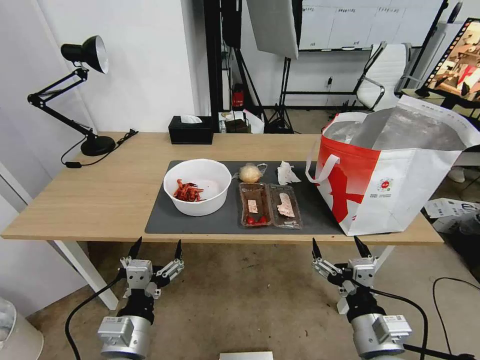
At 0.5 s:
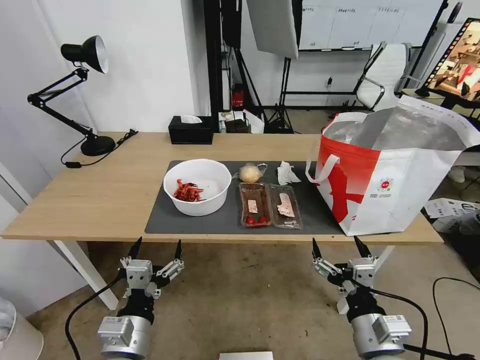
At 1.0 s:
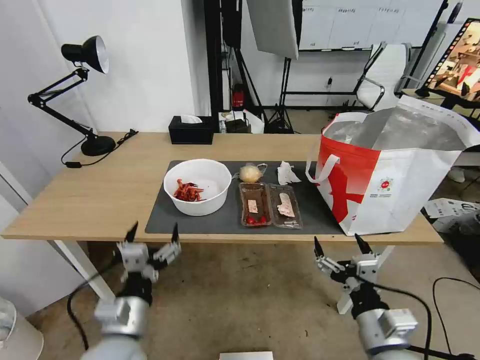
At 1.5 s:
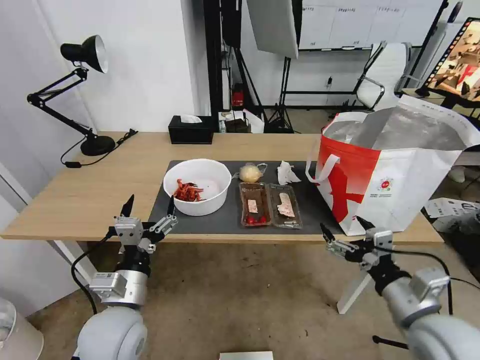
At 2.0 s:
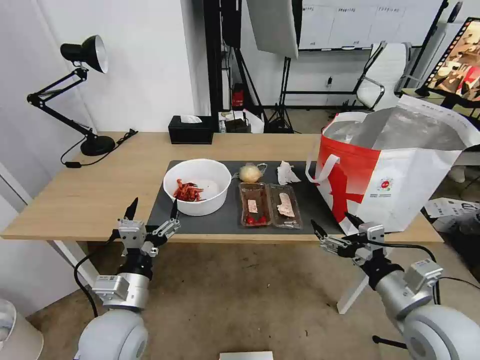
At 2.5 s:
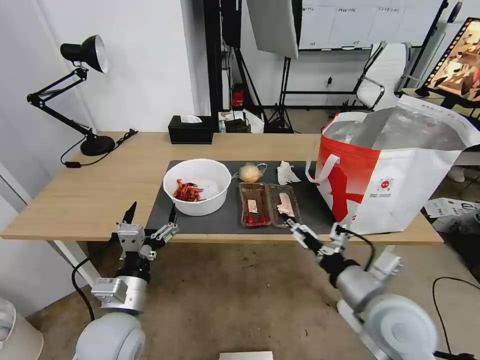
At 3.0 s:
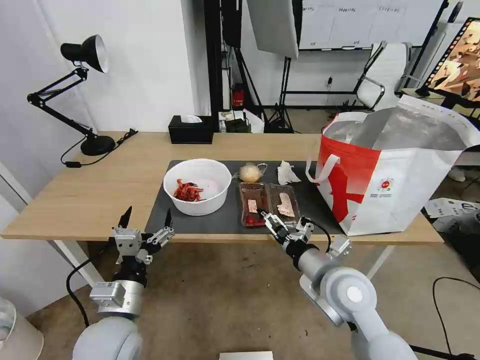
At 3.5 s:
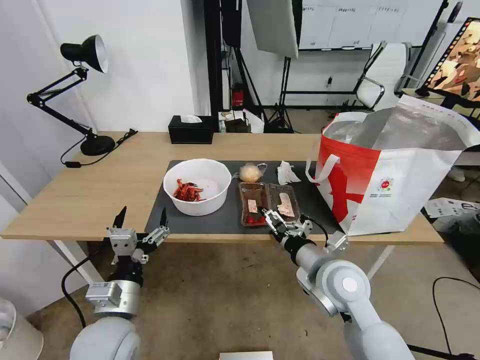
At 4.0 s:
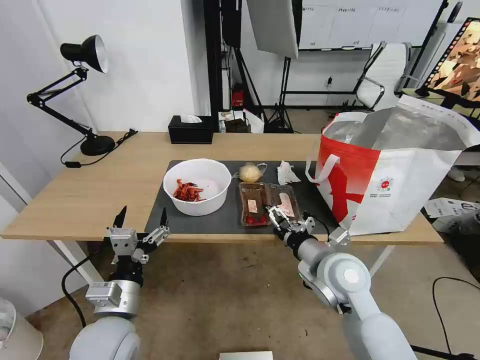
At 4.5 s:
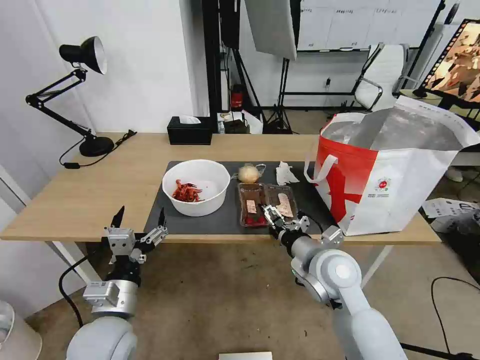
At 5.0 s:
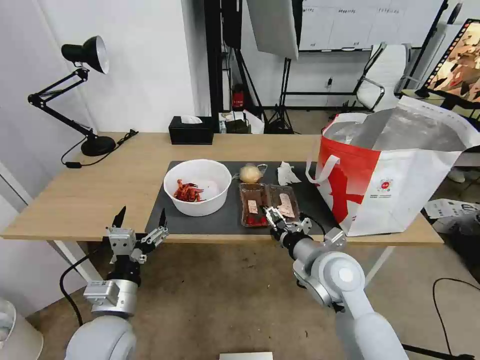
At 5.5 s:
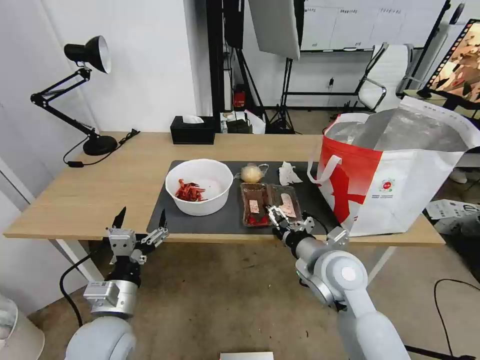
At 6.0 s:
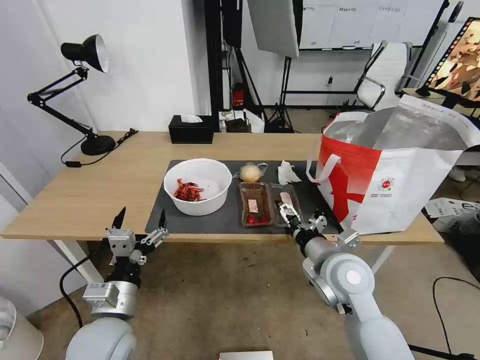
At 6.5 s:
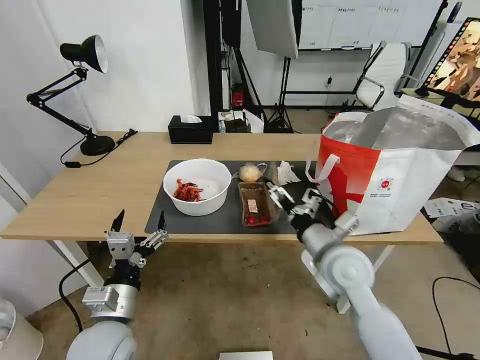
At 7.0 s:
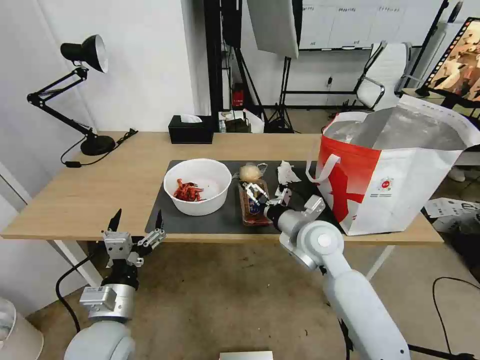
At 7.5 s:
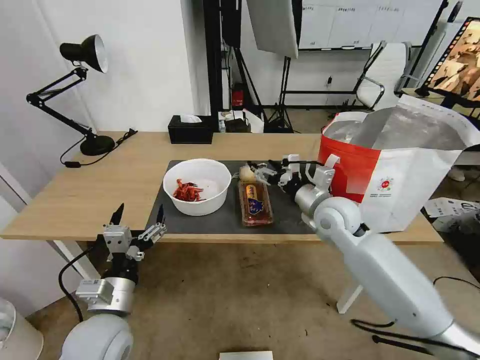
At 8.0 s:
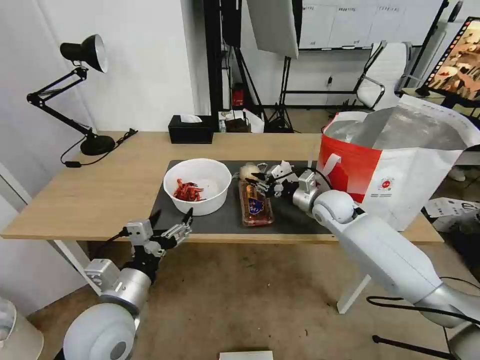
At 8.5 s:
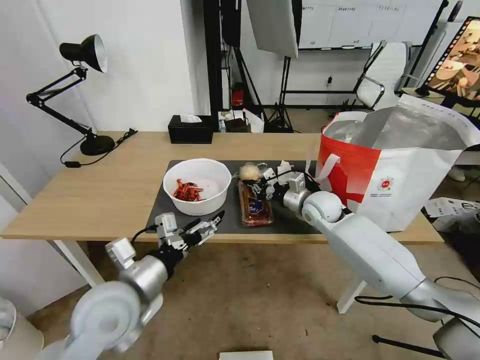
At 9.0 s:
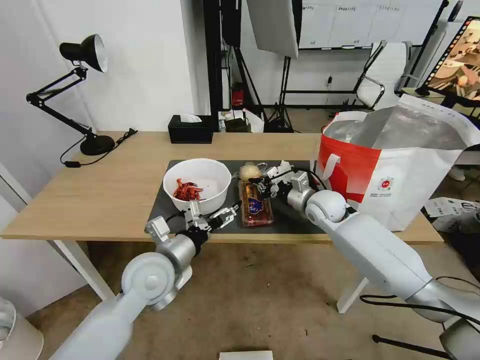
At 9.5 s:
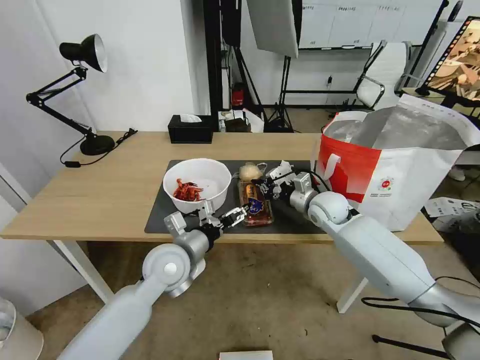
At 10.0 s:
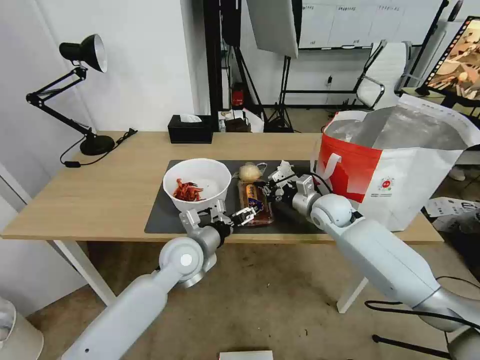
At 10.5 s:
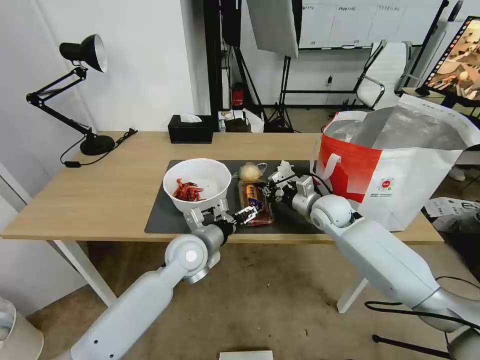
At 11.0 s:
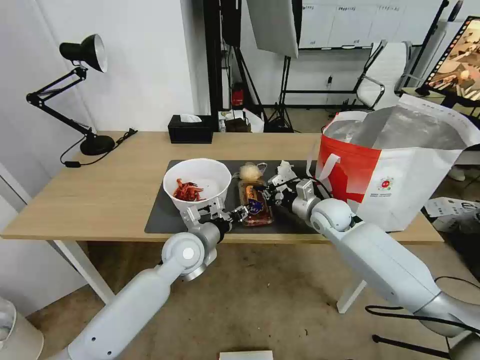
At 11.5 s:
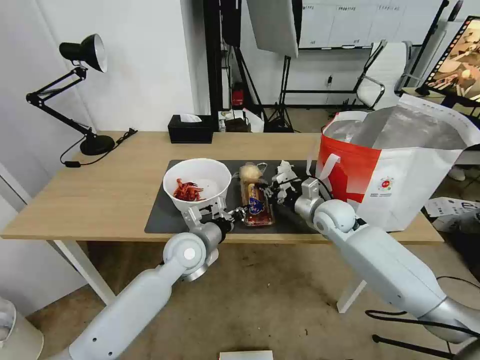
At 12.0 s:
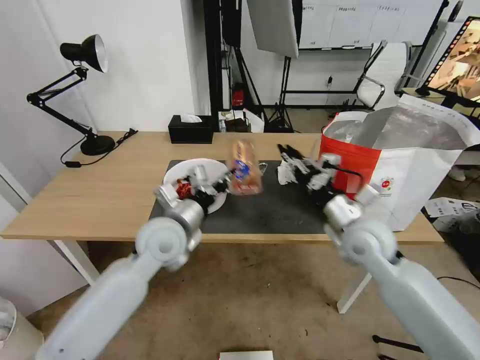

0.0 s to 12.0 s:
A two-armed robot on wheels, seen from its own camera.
Task of the whole recording: Pick up the trash from the table and place it into the takeout bag.
2.0 to 4.0 s: The right gripper goes roughly 15 cm to the left and forward.
4.0 to 6.0 s: There are only small adjustments of the grippers.
6.0 to 8.0 s: The left gripper is displaced upward by approximately 5 cm. The right gripper heads forward, covering approximately 20 cm, and closes.
8.0 to 10.0 s: The left gripper goes roughly 20 cm forward and to the right.
10.0 to 12.0 s: The right gripper travels backward and upward by some 15 cm; the left gripper moves upward, roughly 5 cm, and closes up.

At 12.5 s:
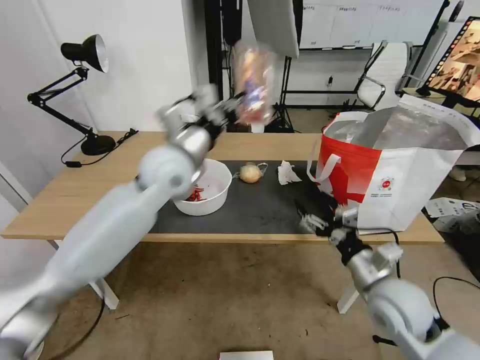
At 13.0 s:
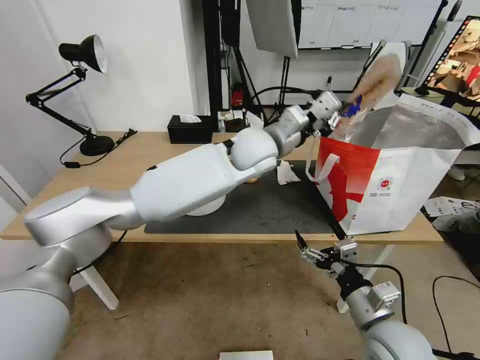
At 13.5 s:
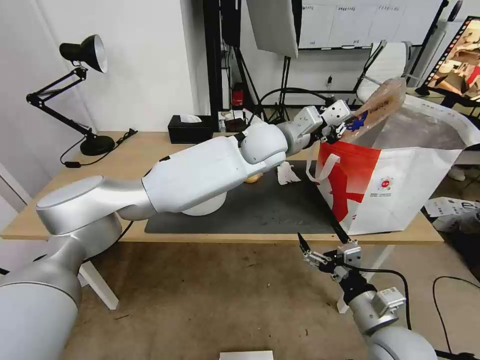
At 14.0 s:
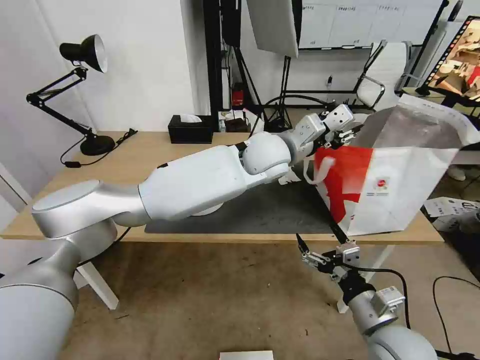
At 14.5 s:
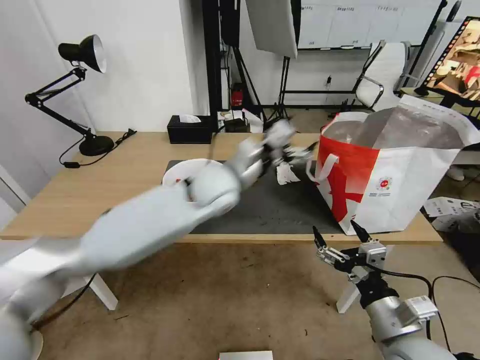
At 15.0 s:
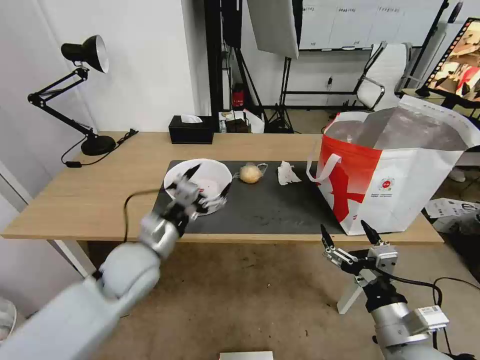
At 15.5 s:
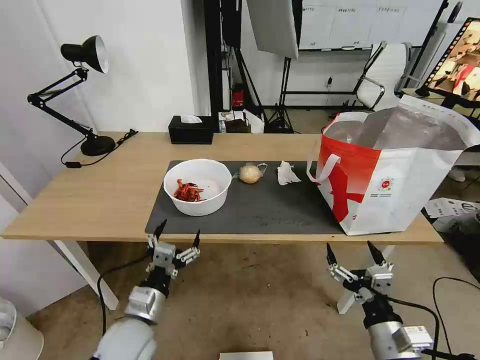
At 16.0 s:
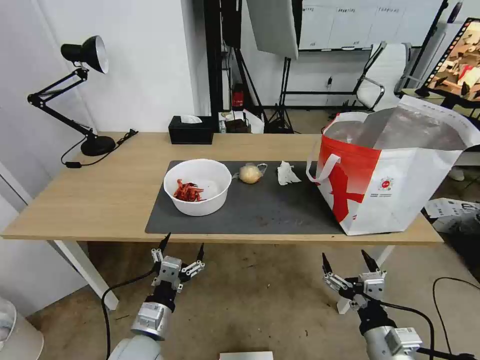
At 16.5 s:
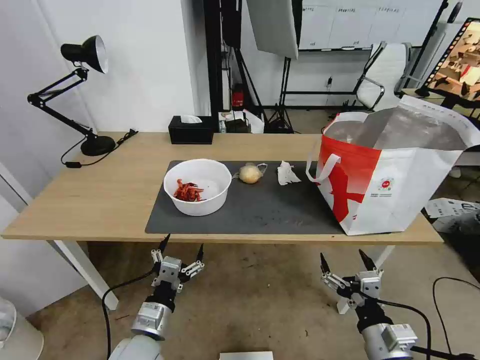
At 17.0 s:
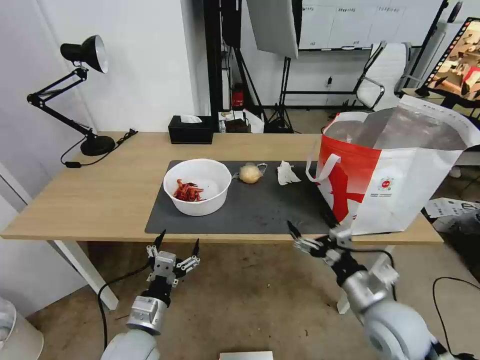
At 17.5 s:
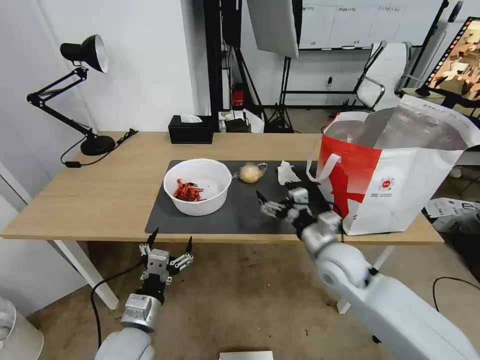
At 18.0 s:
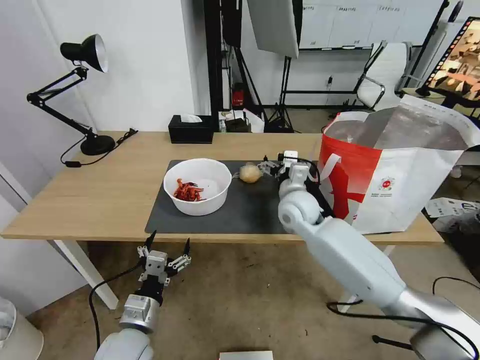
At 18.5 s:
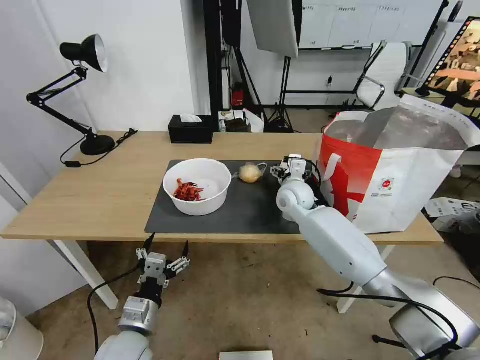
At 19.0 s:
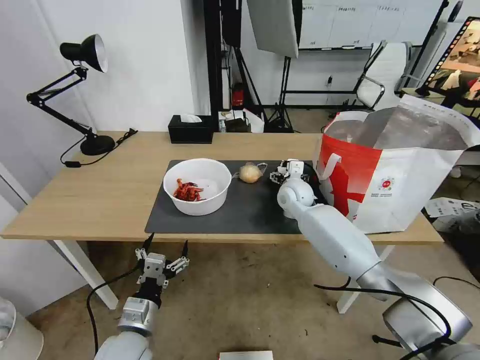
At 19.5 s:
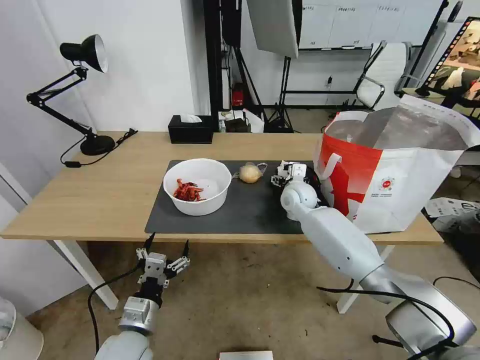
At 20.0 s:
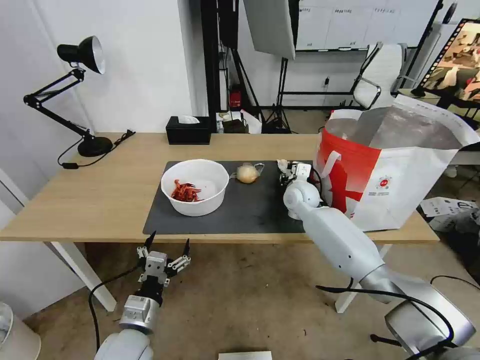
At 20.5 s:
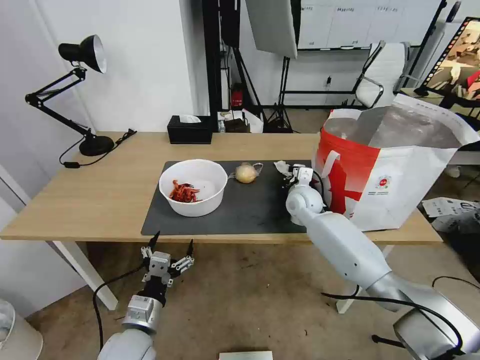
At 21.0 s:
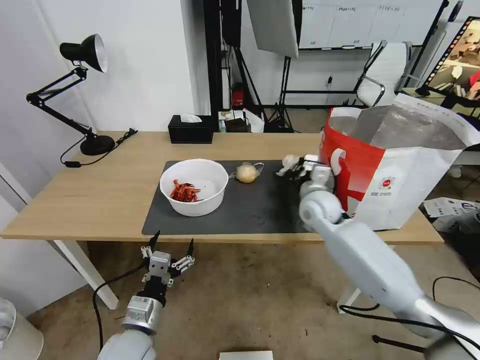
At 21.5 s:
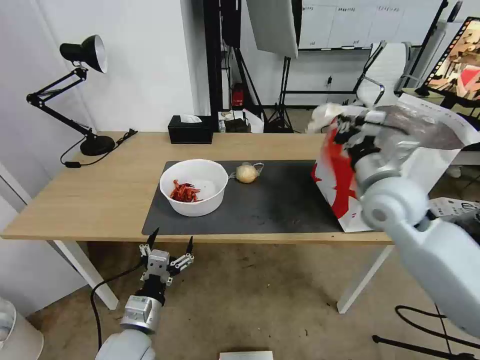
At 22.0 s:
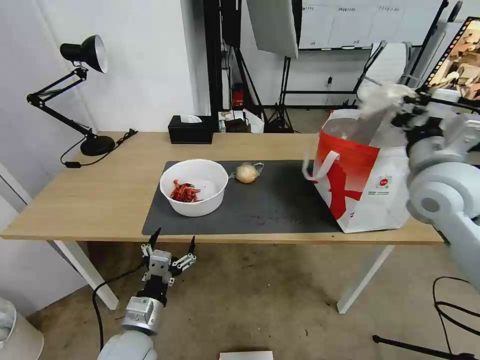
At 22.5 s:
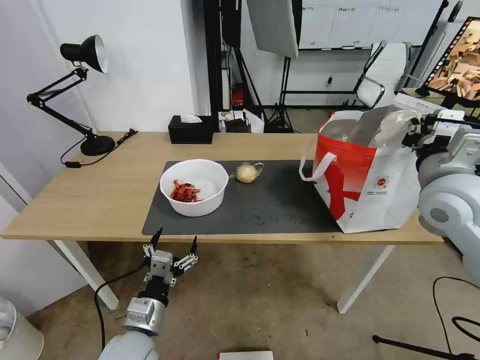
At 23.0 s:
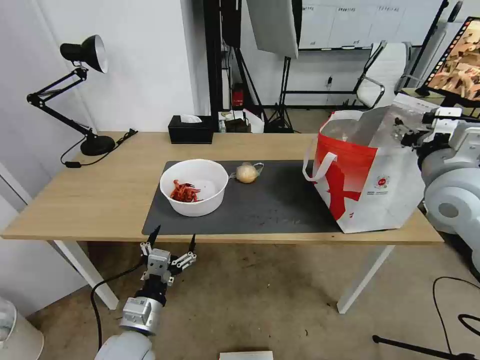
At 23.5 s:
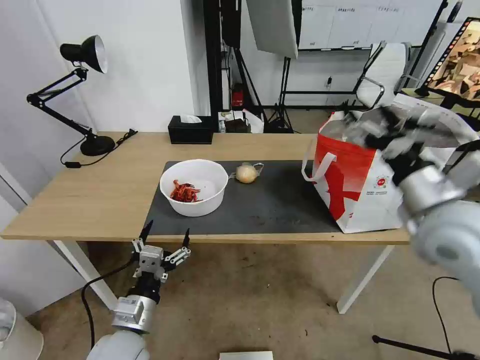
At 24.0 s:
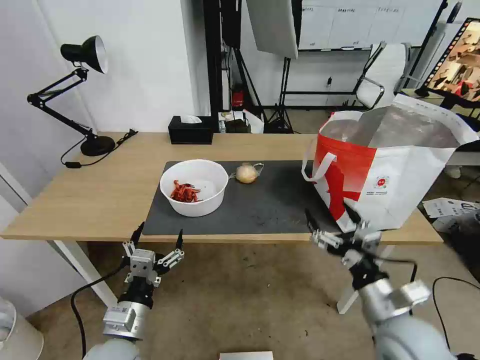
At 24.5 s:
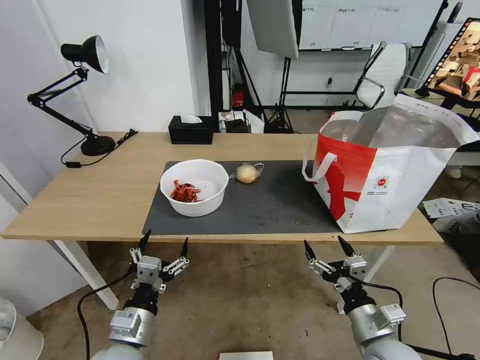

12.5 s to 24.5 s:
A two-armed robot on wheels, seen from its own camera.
Task of the whole recording: Pick up the trash from the table and place it into the takeout bag.
12.5 to 14.5 s: The right gripper heads backward, covering about 10 cm; the left gripper heads to the right and downward, covering about 10 cm, and opens its fingers.
14.5 to 16.5 s: The left gripper moves backward, downward and to the left, some 35 cm. The right gripper moves downward, some 5 cm.
16.5 to 18.5 s: The right gripper moves forward, about 40 cm.
18.5 to 20.5 s: The right gripper closes up.
20.5 to 22.5 s: The right gripper travels upward, backward and to the right by about 30 cm.
22.5 to 24.5 s: The right gripper goes roughly 30 cm downward and backward, and opens up.

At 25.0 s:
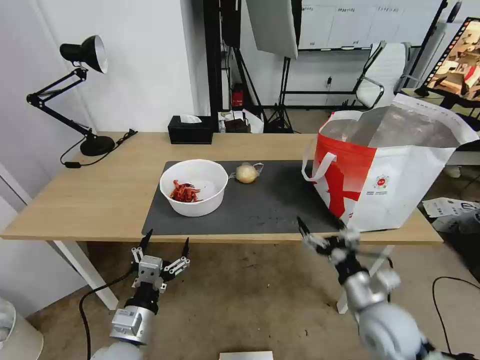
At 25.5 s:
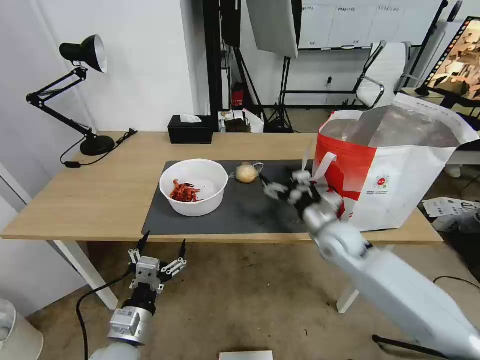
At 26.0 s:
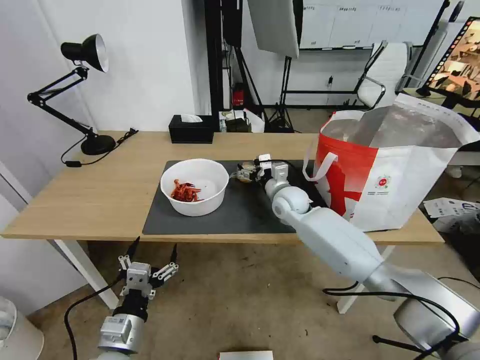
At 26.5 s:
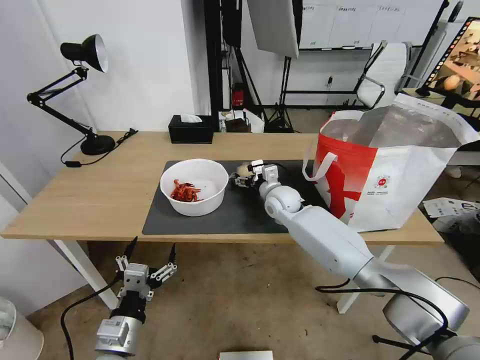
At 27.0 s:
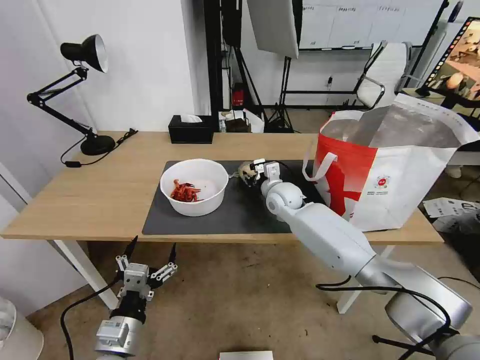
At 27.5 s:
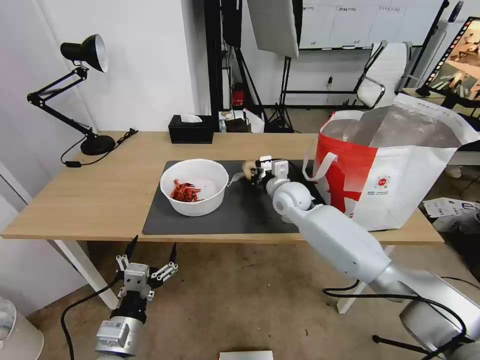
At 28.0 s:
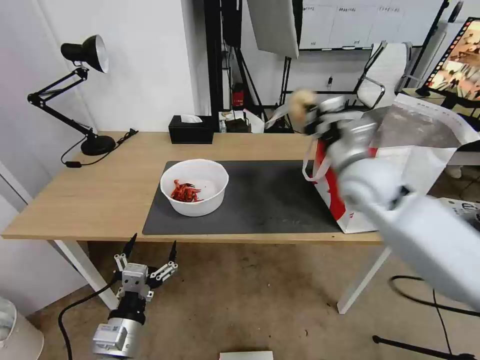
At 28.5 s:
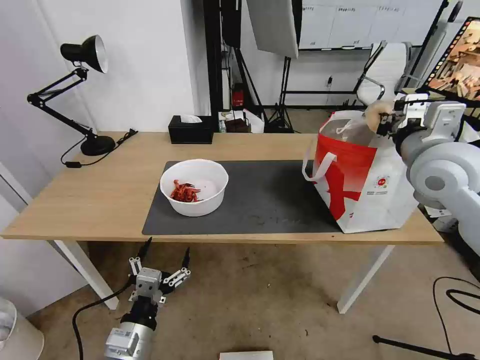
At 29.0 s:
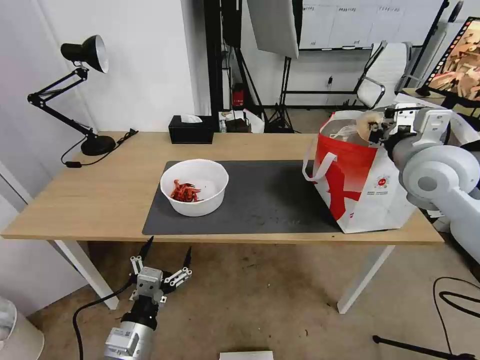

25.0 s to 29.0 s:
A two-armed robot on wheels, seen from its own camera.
Task of the whole recording: Pick up the trash from the table and place it into the takeout bag.
25.0 to 27.0 s: The right gripper travels forward and to the left by about 35 cm, and closes up.
27.0 to 29.0 s: The right gripper travels upward, to the right and backward by some 35 cm.
